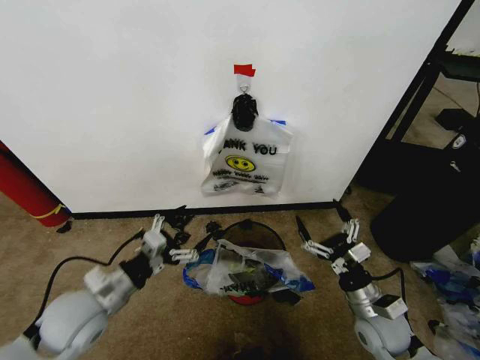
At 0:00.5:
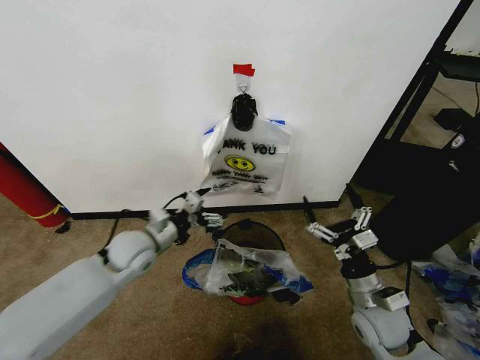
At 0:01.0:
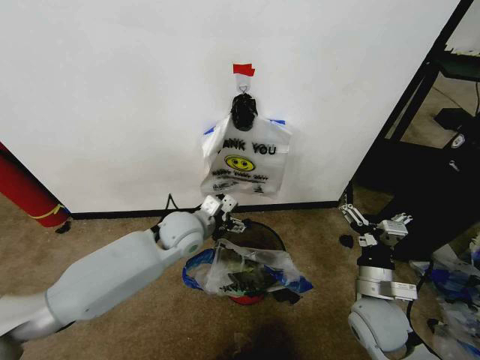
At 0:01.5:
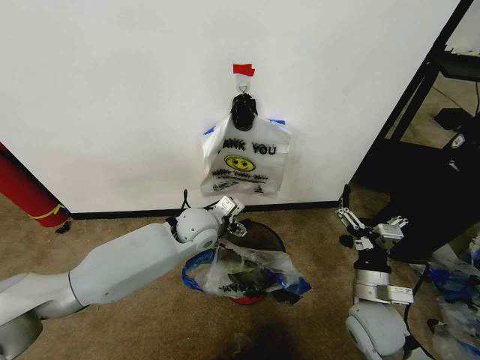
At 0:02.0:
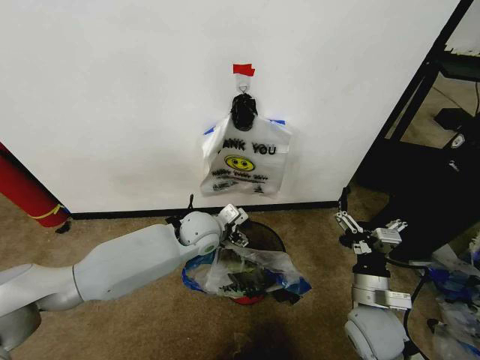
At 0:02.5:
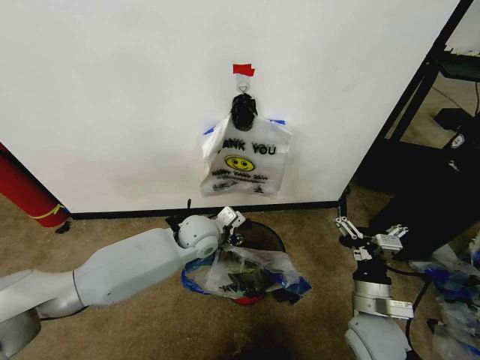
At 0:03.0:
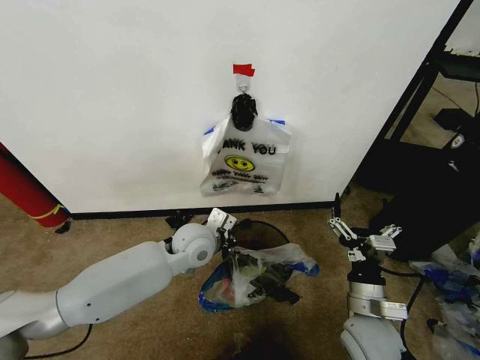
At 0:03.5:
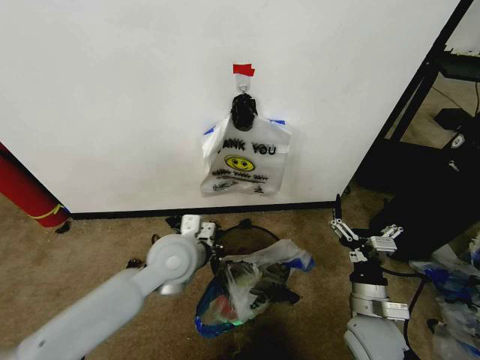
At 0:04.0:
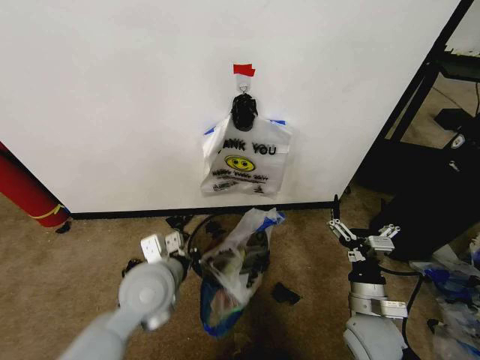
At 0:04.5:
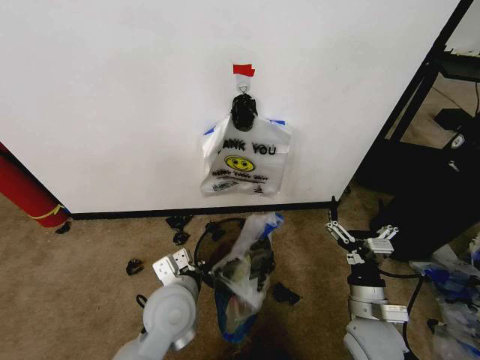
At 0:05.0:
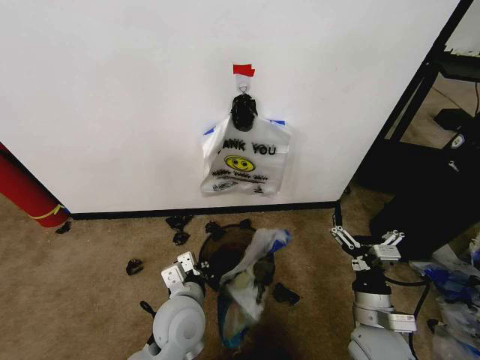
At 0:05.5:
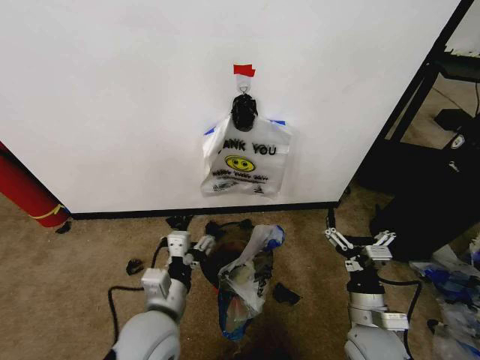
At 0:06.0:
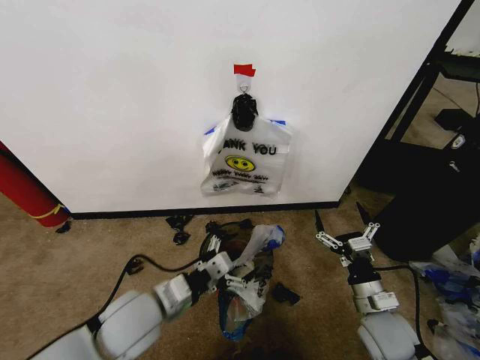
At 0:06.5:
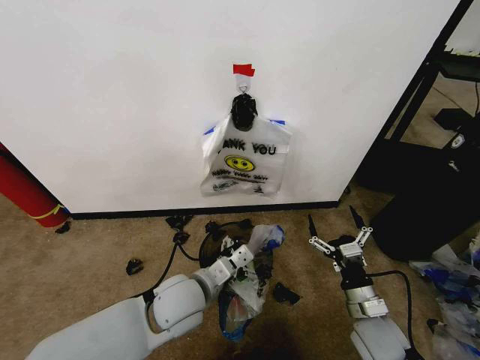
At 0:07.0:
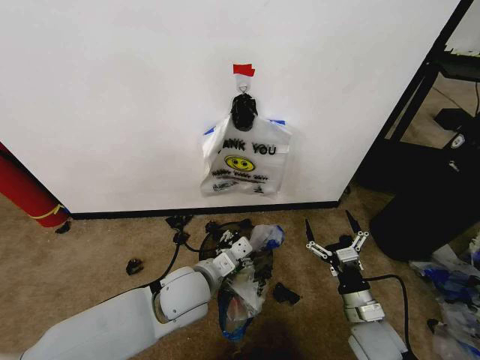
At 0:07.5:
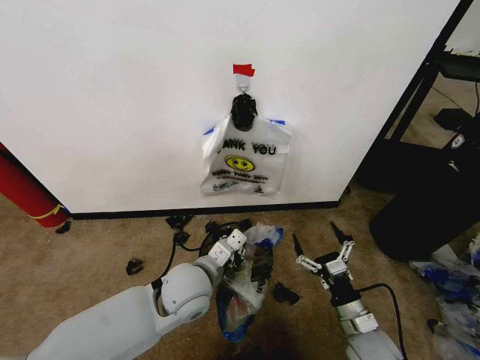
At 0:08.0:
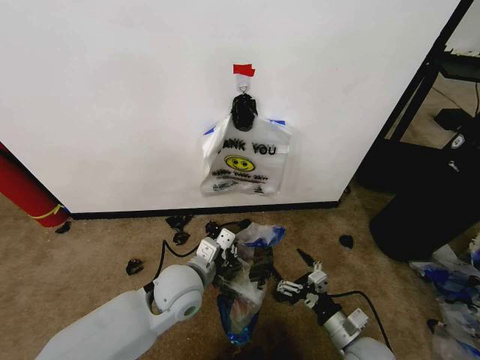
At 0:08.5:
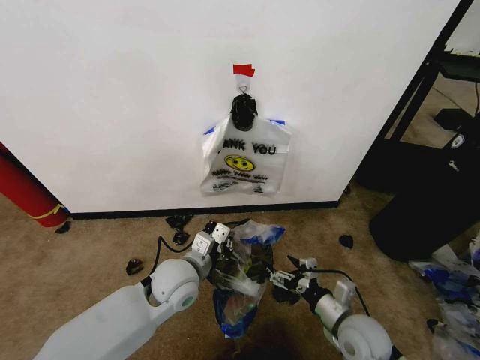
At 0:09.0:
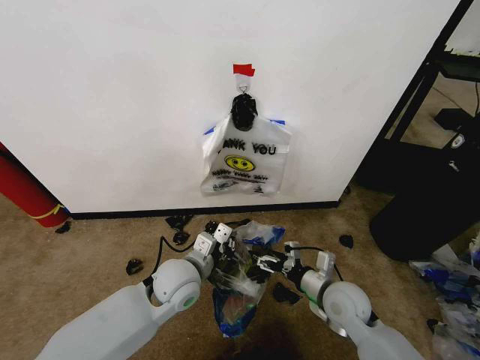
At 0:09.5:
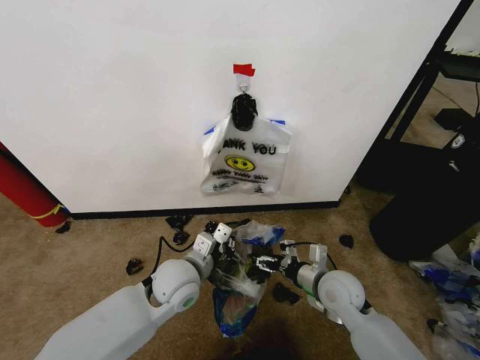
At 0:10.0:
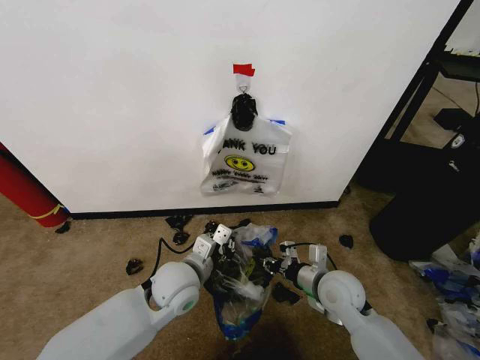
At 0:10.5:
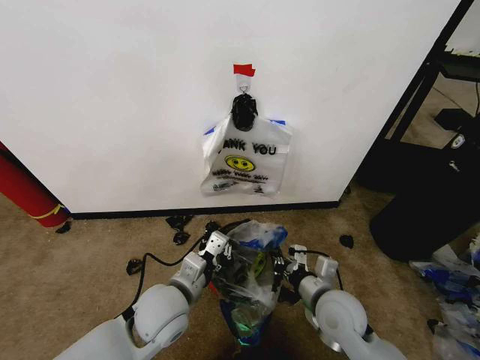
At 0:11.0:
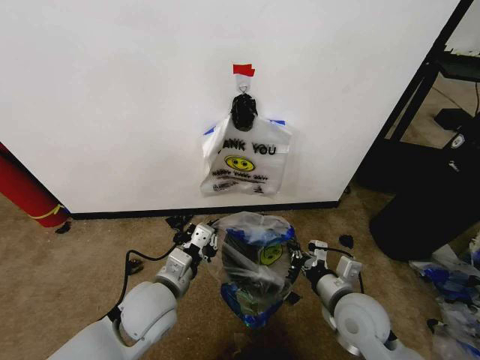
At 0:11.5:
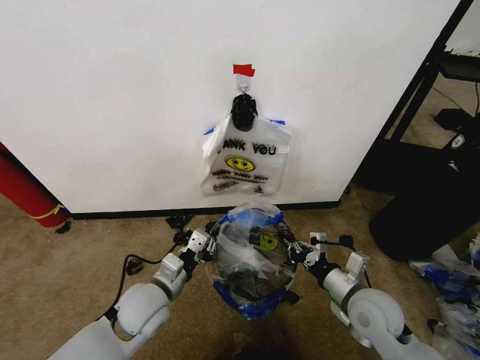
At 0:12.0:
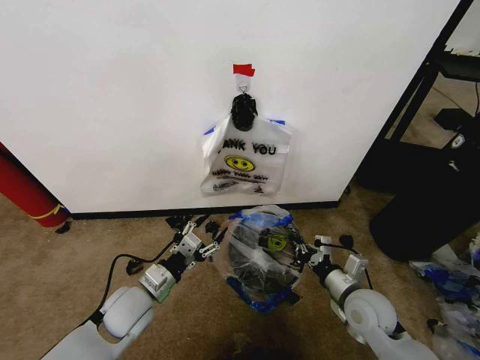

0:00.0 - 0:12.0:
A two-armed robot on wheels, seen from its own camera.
Task of the whole recording: Pick up the garbage bag from the wall and place it over the trash bin.
0:00.0 - 0:02.0: The right gripper shifts by approximately 5 cm. Meanwhile the left gripper moves to the right and forward, about 30 cm.
0:02.0 - 0:04.0: The left gripper shifts about 15 cm backward and to the left, and closes up.
0:04.0 - 0:06.0: The left gripper opens up.
0:06.0 - 0:08.0: The left gripper is displaced to the right and forward by about 10 cm, and closes, while the right gripper travels downward by roughly 5 cm.
0:08.0 - 0:10.0: The right gripper is displaced forward and upward by about 15 cm, and closes.
0:10.0 - 0:12.0: The right gripper shifts about 5 cm to the right. The left gripper shifts approximately 10 cm to the left, and opens.

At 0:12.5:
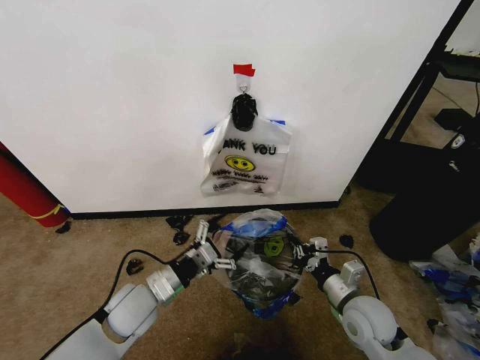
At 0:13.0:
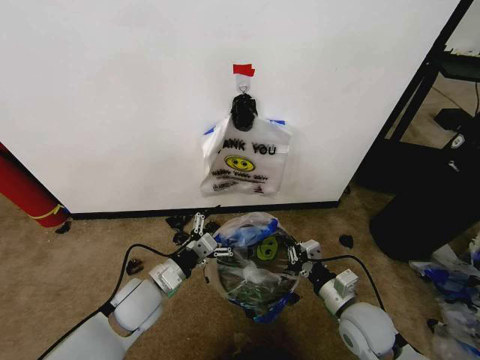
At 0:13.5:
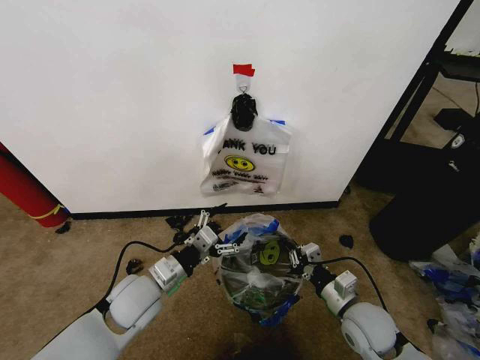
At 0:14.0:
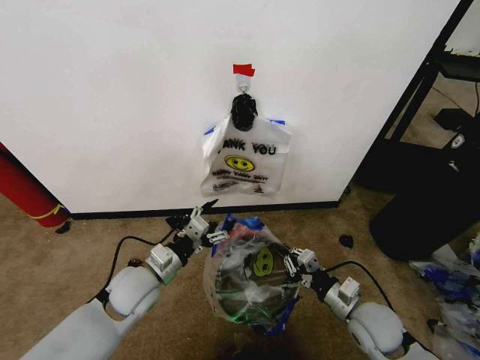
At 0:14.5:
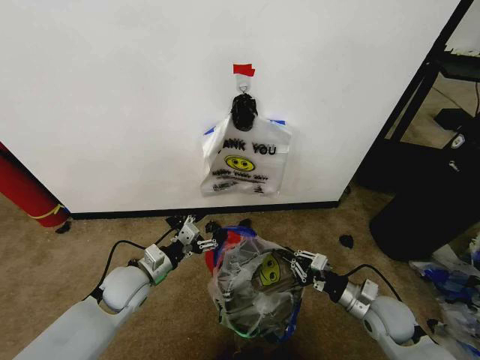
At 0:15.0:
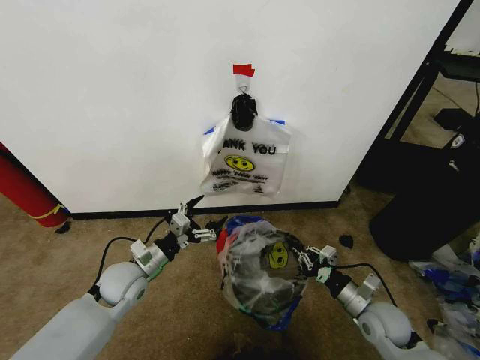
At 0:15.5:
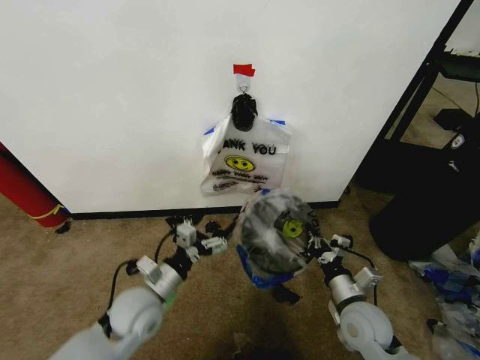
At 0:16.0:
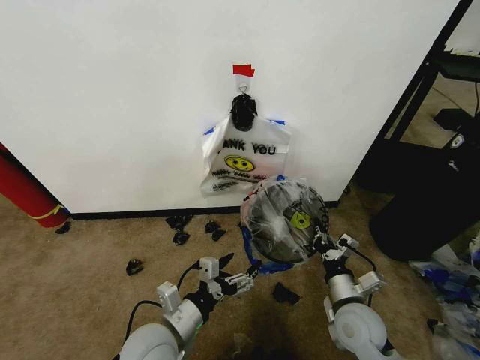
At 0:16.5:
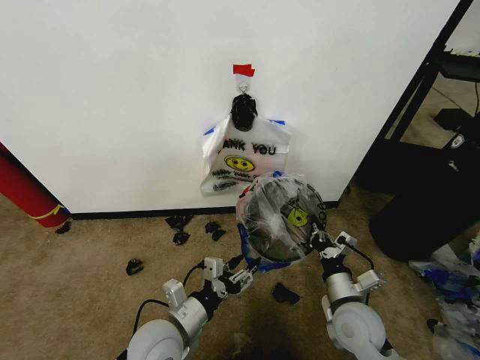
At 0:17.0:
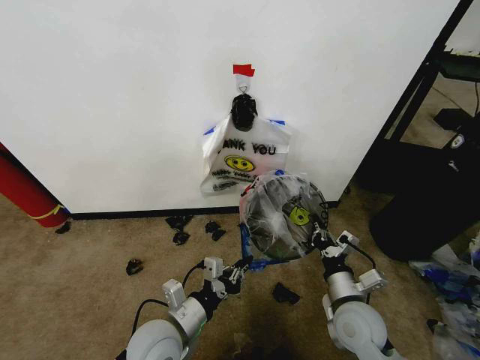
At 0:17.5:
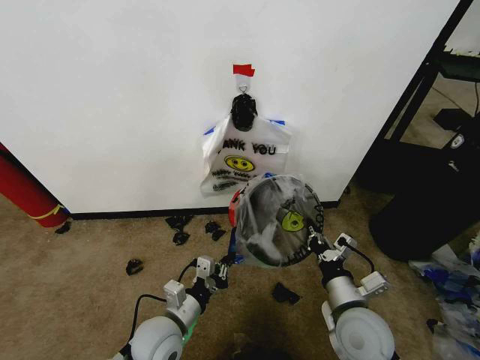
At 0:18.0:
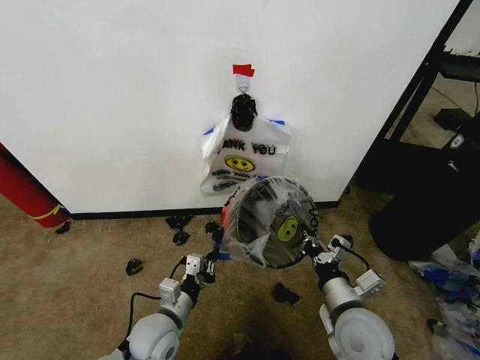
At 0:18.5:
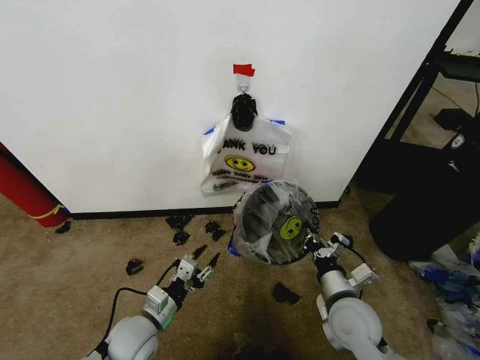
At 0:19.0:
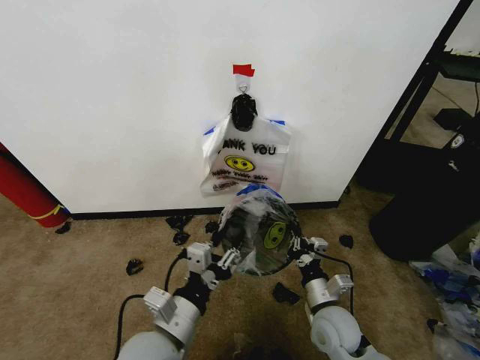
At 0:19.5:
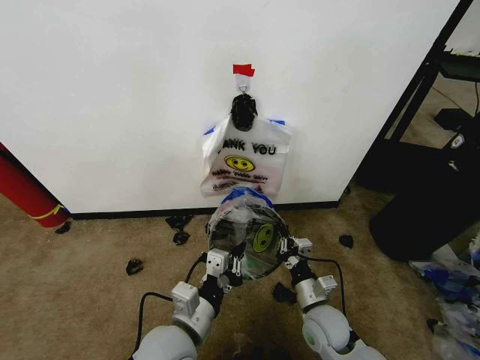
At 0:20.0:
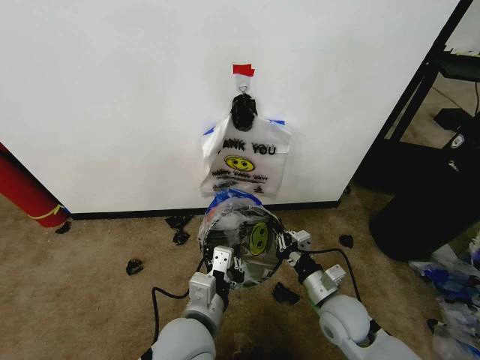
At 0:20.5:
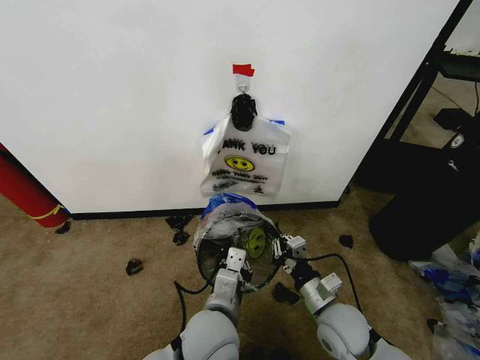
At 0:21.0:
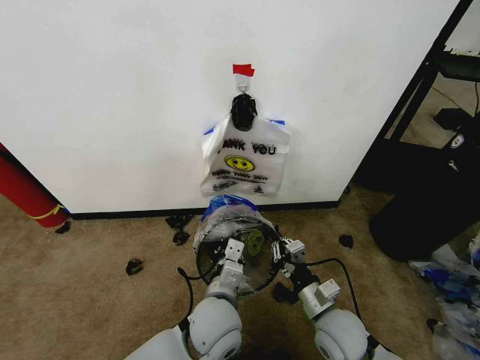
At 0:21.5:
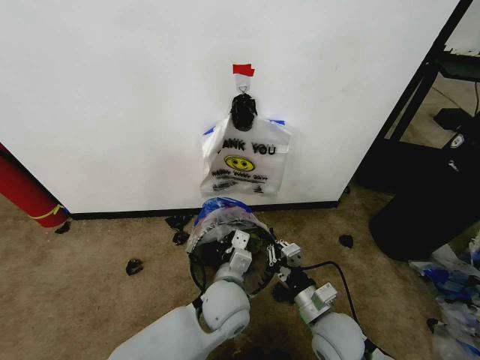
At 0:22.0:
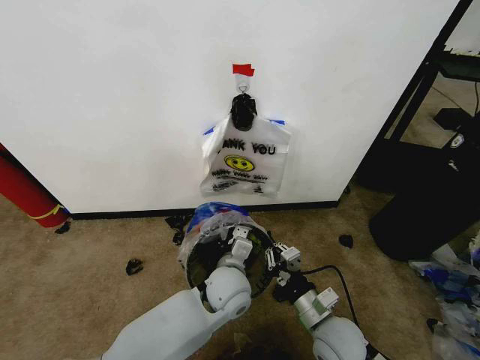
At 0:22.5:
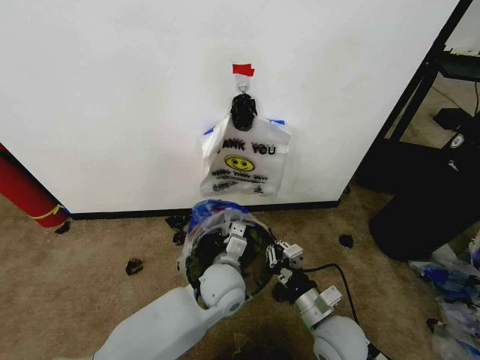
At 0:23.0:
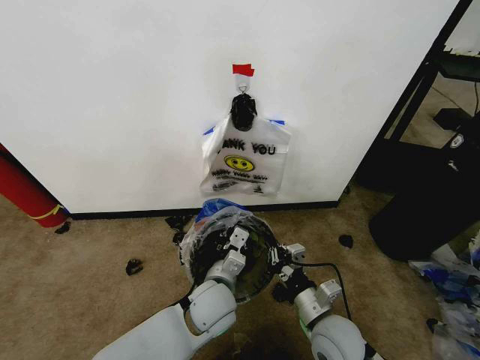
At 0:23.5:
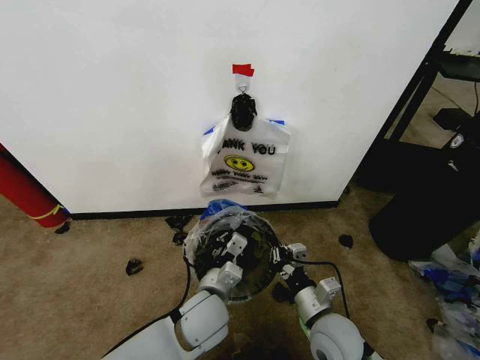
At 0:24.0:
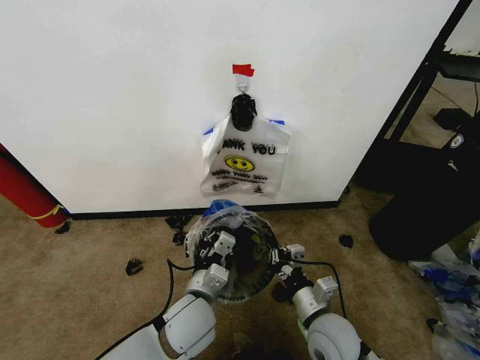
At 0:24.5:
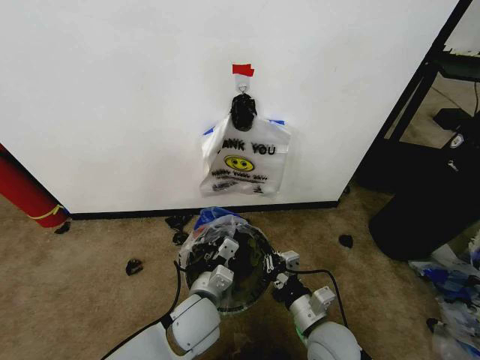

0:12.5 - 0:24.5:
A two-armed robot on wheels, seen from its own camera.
Task of the whole recording: Pick up the garbage bag from the wall and place it over the trash bin.
0:12.5 - 0:14.5: The left gripper shifts by about 5 cm; the right gripper moves to the right, about 5 cm.
0:14.5 - 0:16.5: The left gripper moves backward and to the right, about 15 cm, while the right gripper is displaced to the left by roughly 10 cm.
0:16.5 - 0:18.5: The left gripper moves to the left and downward, approximately 10 cm, and closes, then opens again.
0:18.5 - 0:20.5: The left gripper heads to the right and upward, covering approximately 20 cm, and closes its fingers.
0:20.5 - 0:22.5: The left gripper travels forward by some 10 cm.
0:22.5 - 0:24.5: The left gripper goes approximately 10 cm backward and to the left.

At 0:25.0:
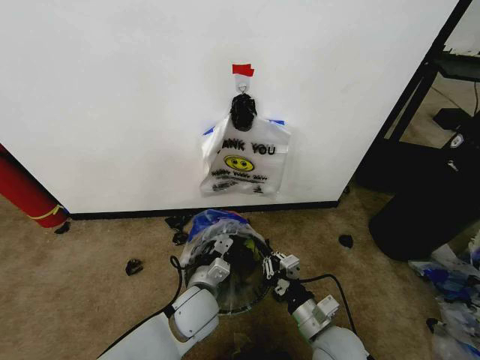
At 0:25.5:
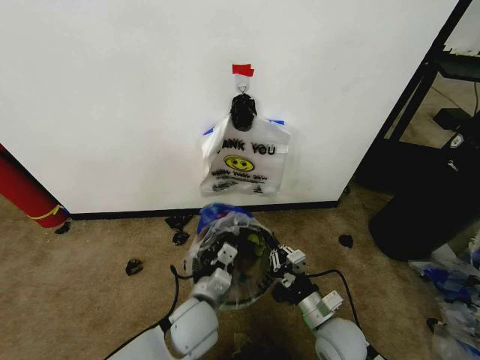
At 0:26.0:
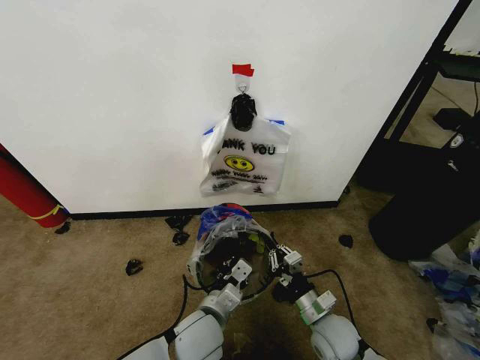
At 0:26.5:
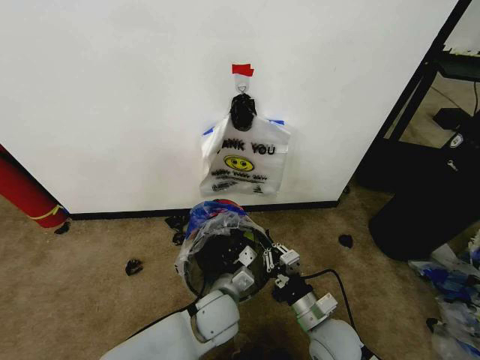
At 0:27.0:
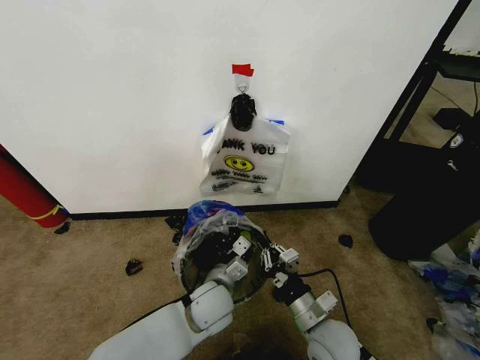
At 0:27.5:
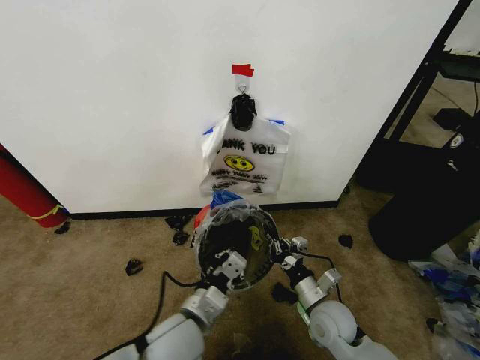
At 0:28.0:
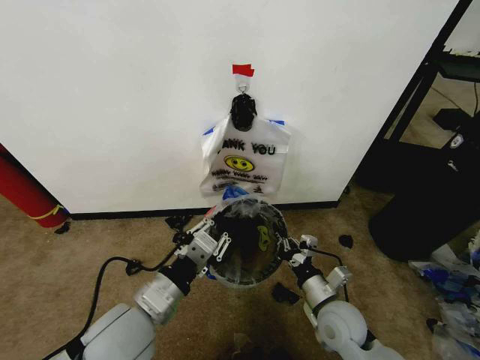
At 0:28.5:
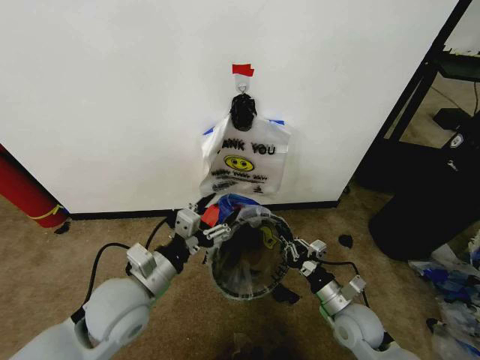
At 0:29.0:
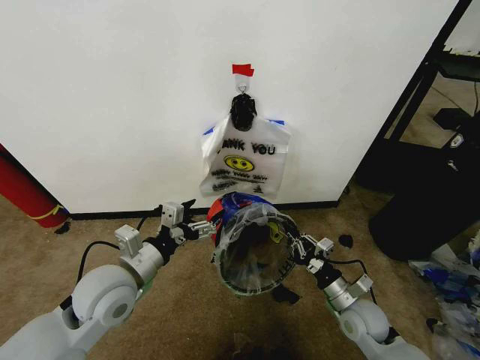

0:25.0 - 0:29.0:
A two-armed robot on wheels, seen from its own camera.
Task of the whole recording: Pick up the garbage bag from the wall and place it over the trash bin.
0:27.0 - 0:29.0: The right gripper shifts about 10 cm to the right and forward. The left gripper shifts approximately 20 cm to the left and upward, and opens.
